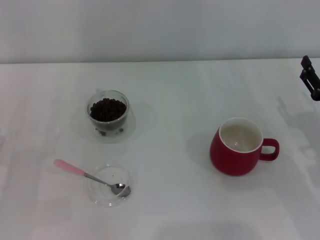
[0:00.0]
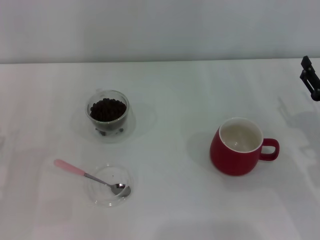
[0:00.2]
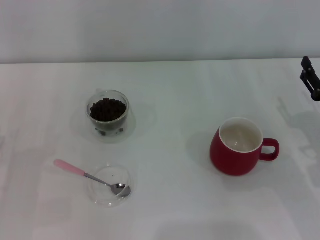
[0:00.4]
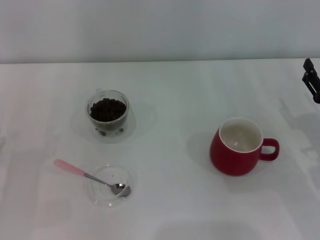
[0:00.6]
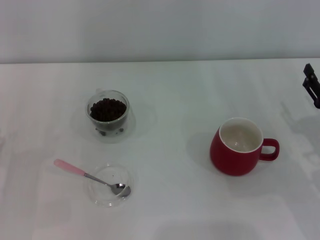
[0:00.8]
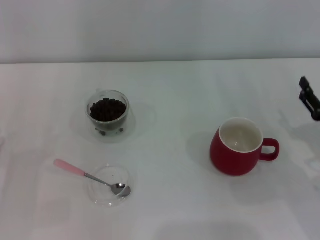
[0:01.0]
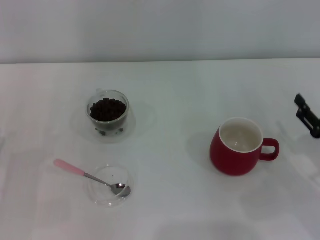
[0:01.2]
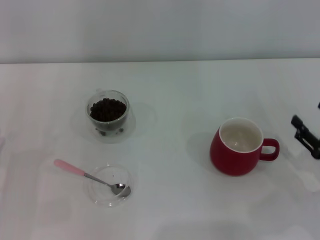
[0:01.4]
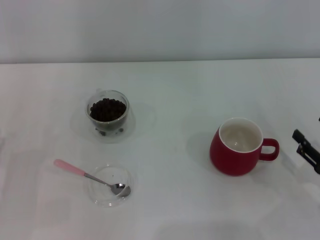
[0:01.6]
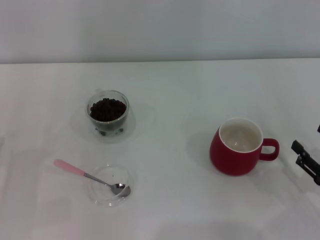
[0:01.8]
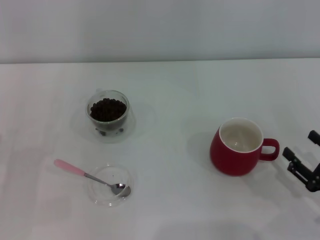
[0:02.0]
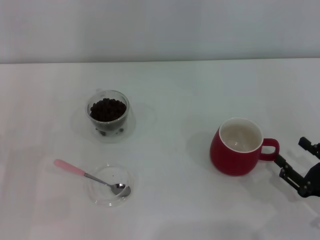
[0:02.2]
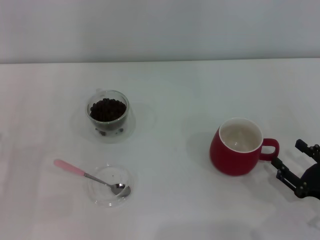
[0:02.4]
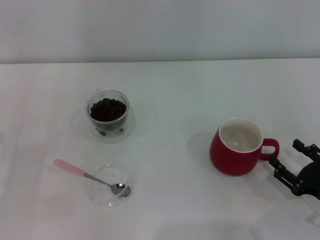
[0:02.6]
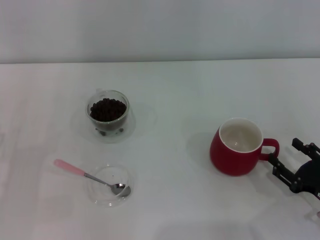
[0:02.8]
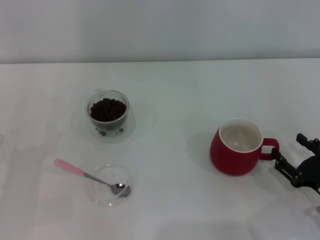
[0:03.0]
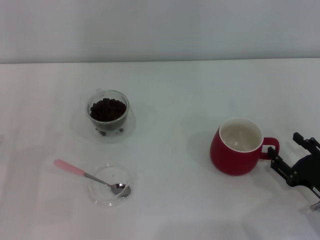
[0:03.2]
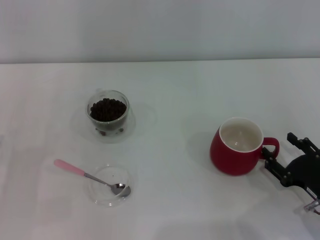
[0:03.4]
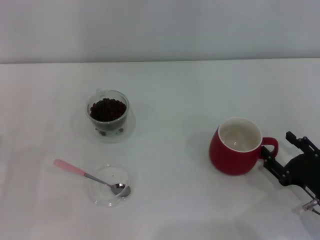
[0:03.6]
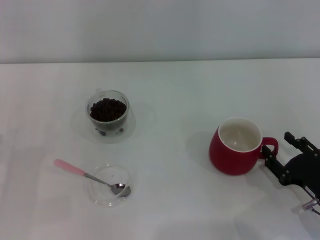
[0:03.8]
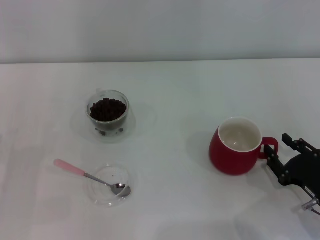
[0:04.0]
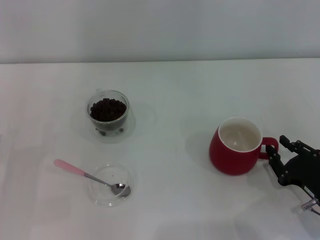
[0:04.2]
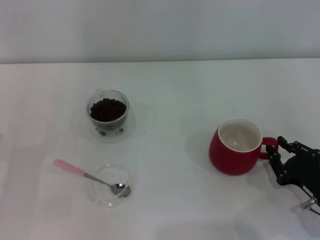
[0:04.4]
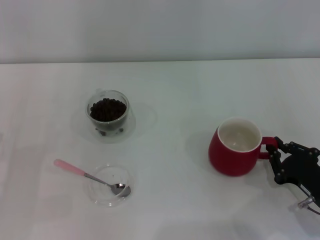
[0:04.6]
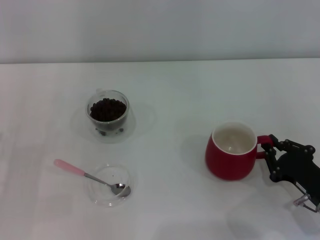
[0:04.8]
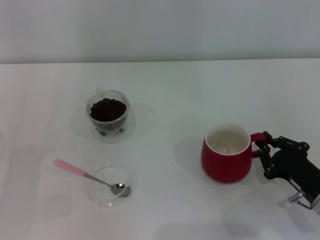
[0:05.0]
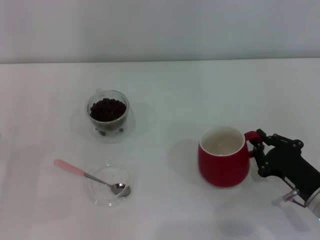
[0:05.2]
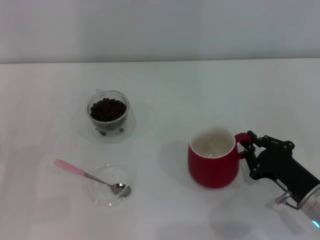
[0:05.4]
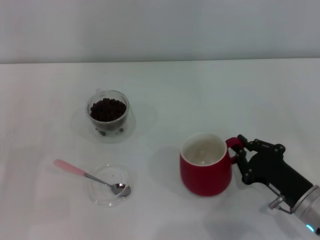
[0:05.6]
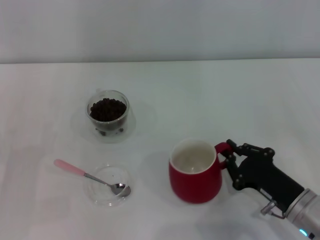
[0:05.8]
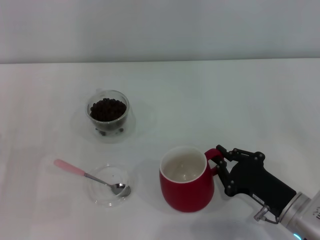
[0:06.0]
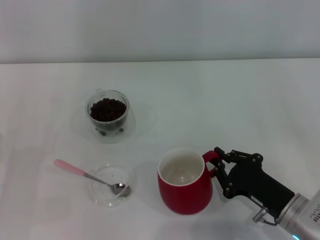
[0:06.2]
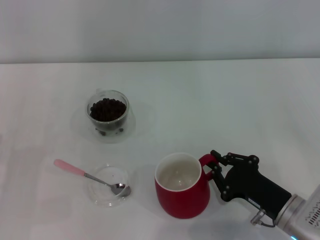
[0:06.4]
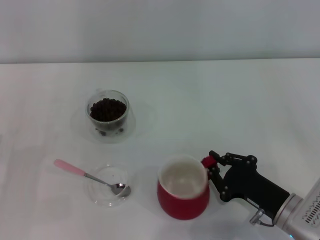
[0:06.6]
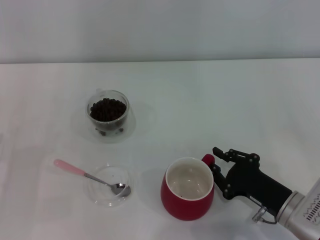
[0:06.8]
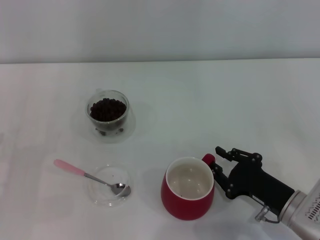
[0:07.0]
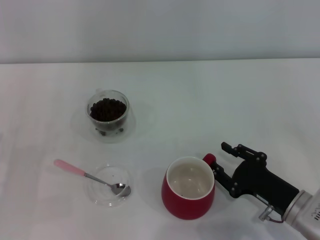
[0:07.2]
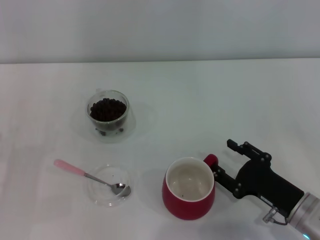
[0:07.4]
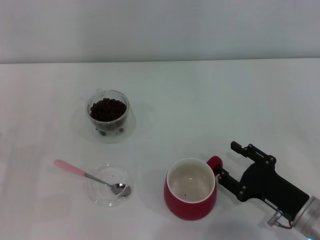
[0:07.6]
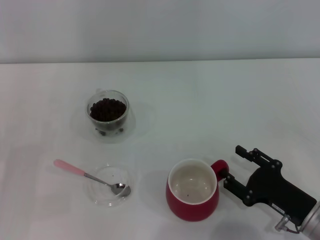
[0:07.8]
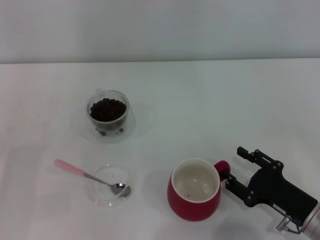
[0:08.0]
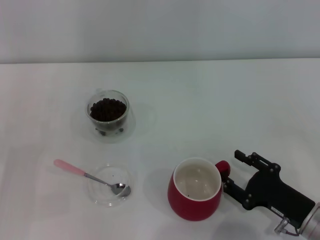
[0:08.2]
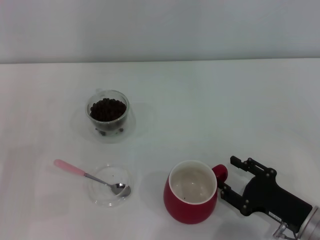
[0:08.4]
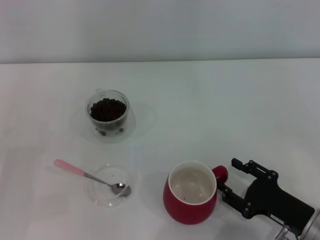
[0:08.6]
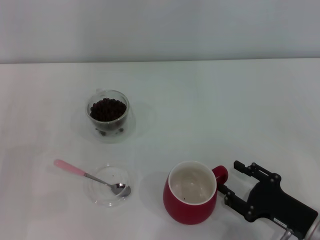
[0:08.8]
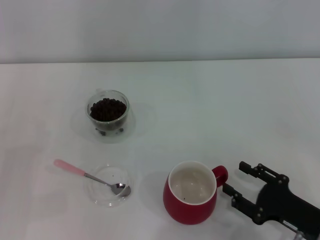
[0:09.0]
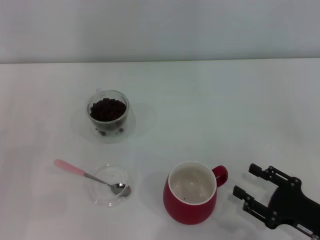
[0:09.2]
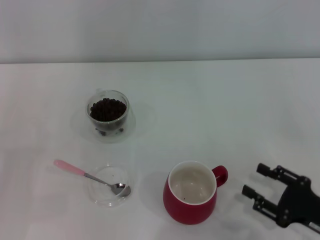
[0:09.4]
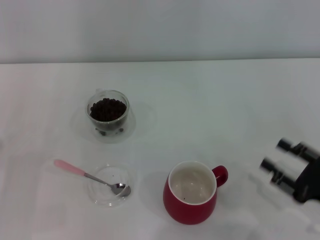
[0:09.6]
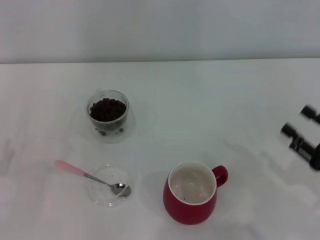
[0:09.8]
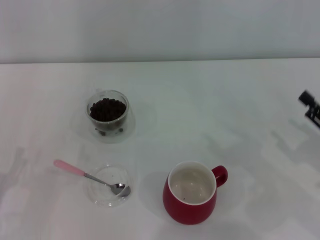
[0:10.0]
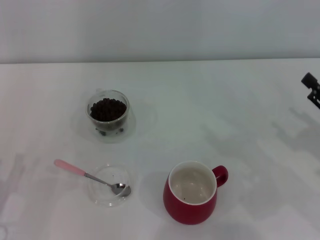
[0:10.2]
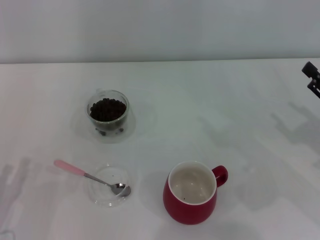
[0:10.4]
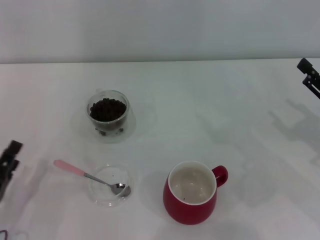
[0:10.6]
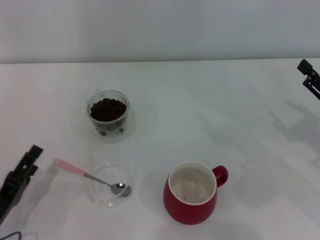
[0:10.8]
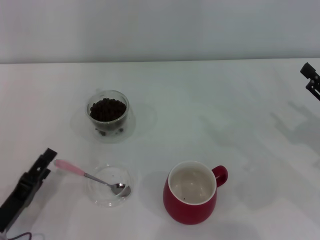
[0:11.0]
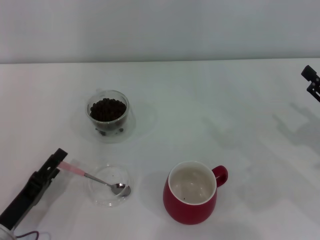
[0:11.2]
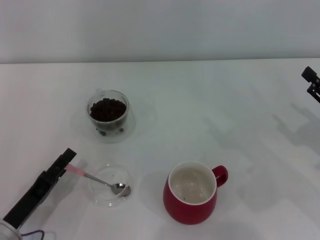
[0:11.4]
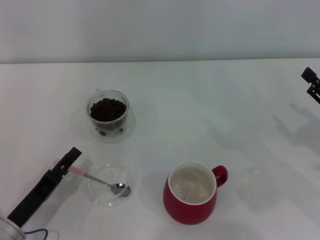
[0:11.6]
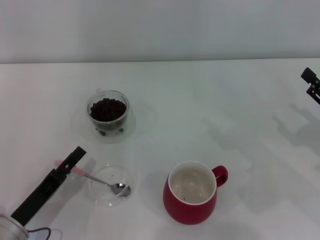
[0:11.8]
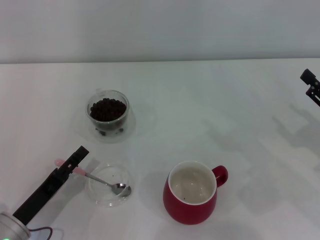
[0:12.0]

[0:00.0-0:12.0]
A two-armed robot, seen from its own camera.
Task of the whole recording: Use a pink spoon to take out the coffee beans from the glass and pour them into the red cup.
Step, 0:00.0 to 0:09.4: Move the cup to the center of view with the left gripper.
0:00.0 to 0:01.6: The right gripper heads backward, covering about 10 cm.
0:01.6 to 0:03.0: There are only small adjustments of the grippers.
0:03.0 to 0:04.4: The right gripper closes.
0:04.4 to 0:06.0: The right gripper goes about 5 cm to the left, and closes.
0:06.0 to 0:07.6: The right gripper opens.
0:07.6 to 0:09.0: The grippers move only a little.
0:09.0 to 0:10.4: The right gripper goes approximately 15 cm to the right, upward and forward.
0:10.4 to 0:12.0: The left gripper is displaced to the right by approximately 5 cm.

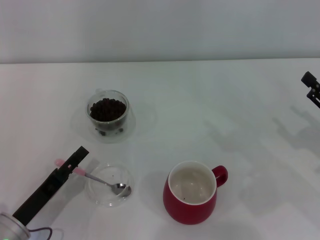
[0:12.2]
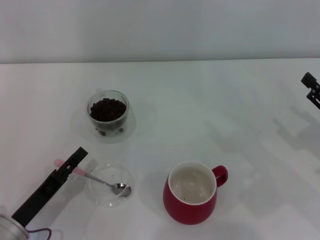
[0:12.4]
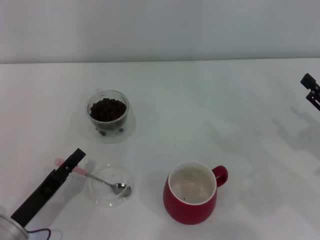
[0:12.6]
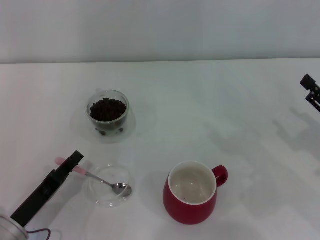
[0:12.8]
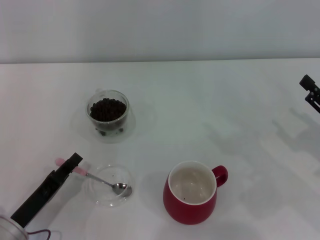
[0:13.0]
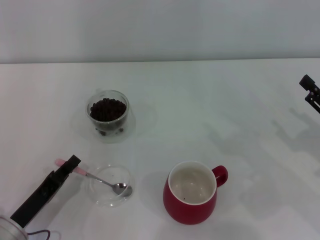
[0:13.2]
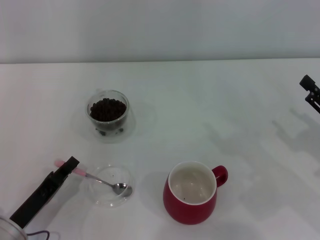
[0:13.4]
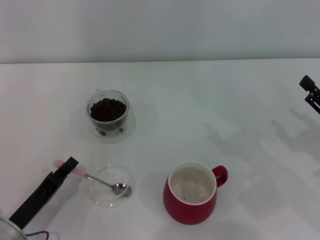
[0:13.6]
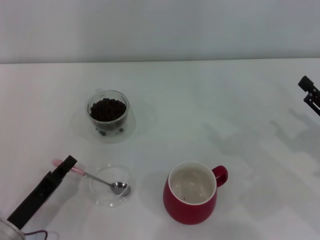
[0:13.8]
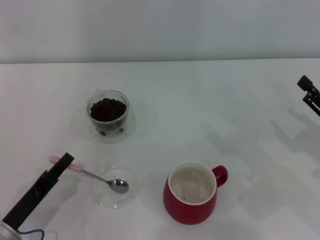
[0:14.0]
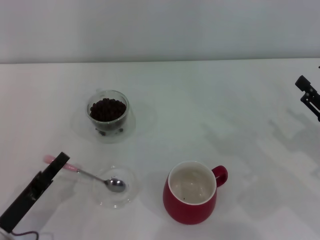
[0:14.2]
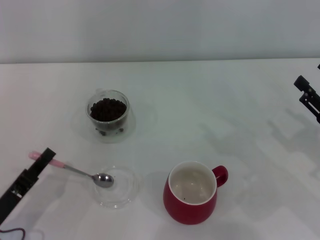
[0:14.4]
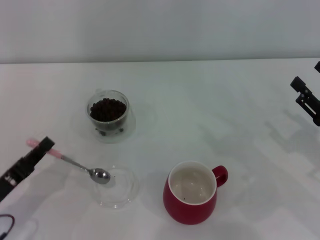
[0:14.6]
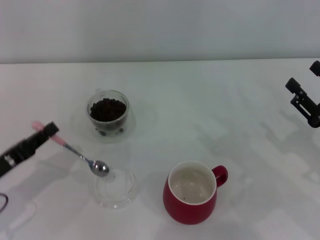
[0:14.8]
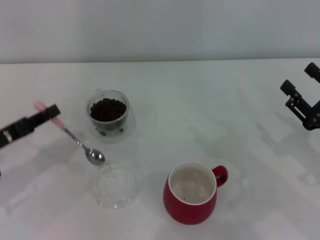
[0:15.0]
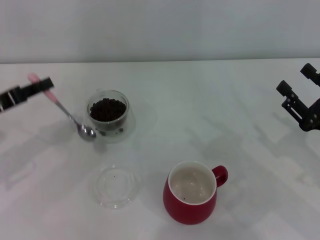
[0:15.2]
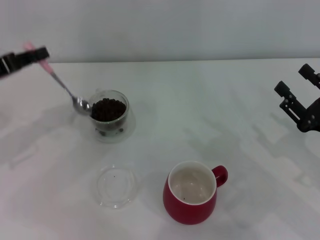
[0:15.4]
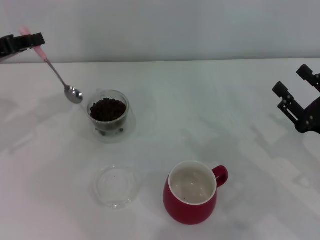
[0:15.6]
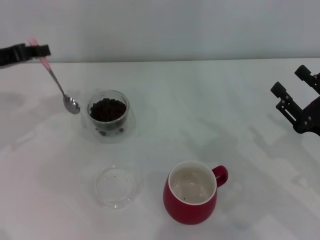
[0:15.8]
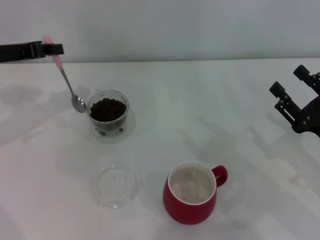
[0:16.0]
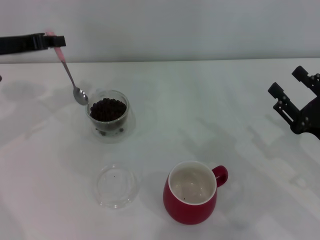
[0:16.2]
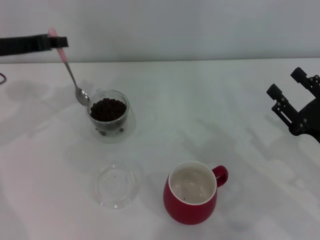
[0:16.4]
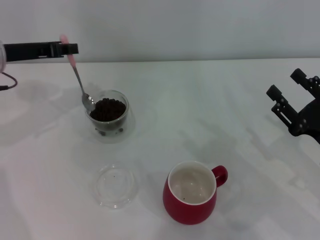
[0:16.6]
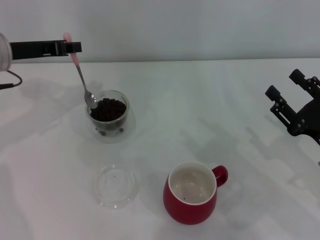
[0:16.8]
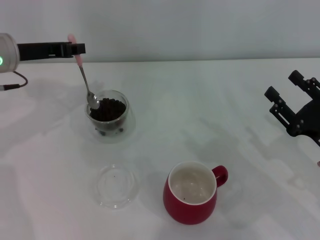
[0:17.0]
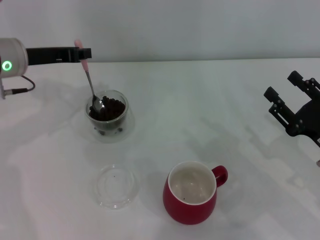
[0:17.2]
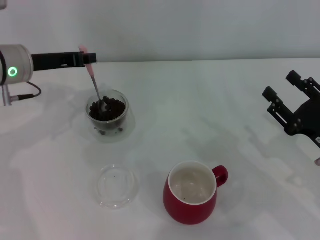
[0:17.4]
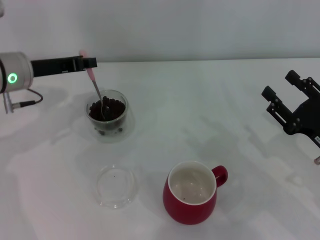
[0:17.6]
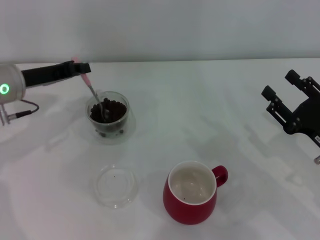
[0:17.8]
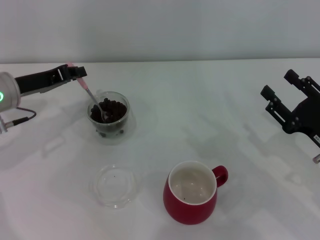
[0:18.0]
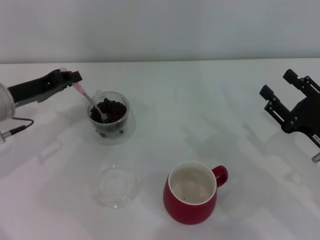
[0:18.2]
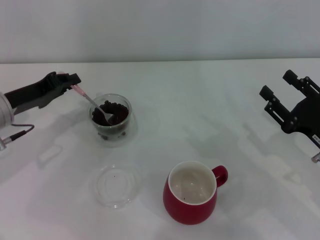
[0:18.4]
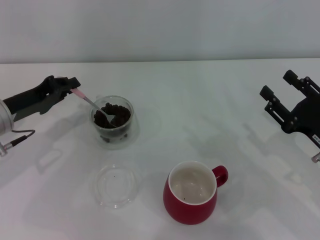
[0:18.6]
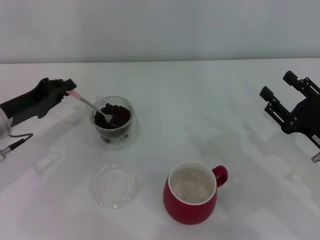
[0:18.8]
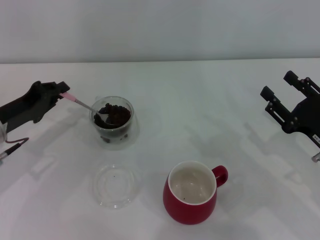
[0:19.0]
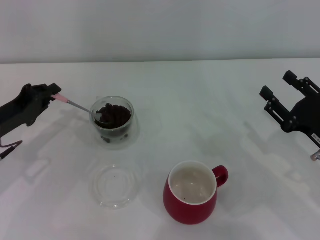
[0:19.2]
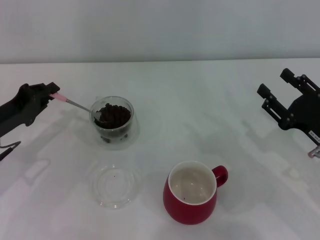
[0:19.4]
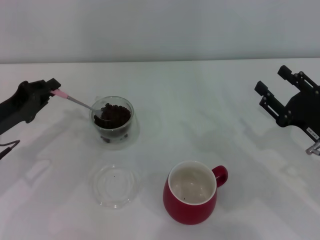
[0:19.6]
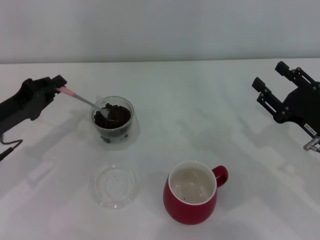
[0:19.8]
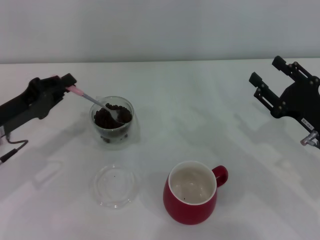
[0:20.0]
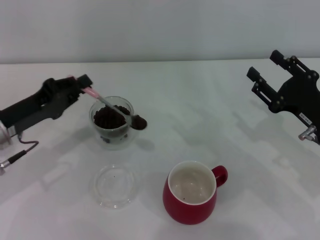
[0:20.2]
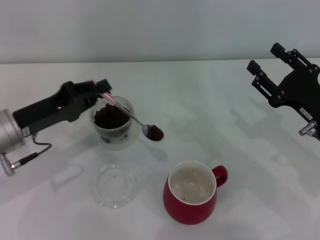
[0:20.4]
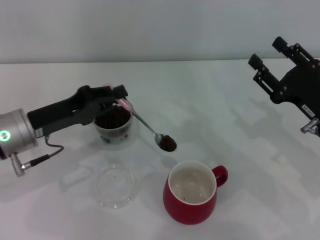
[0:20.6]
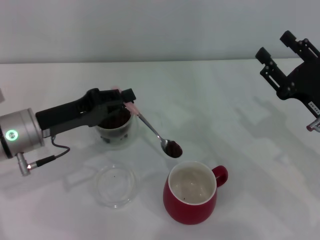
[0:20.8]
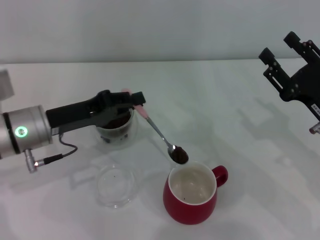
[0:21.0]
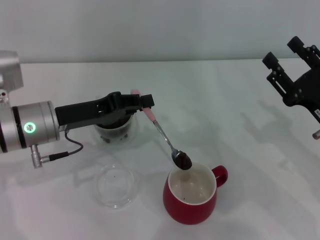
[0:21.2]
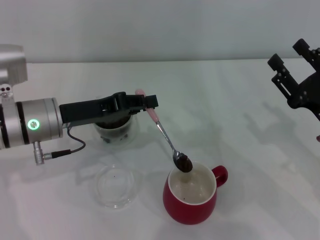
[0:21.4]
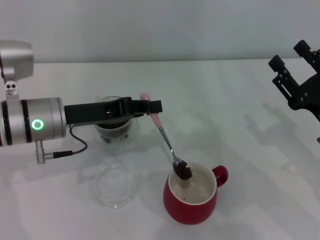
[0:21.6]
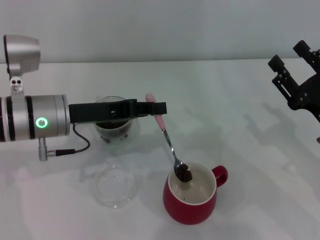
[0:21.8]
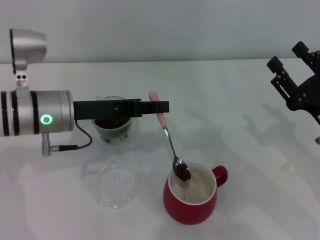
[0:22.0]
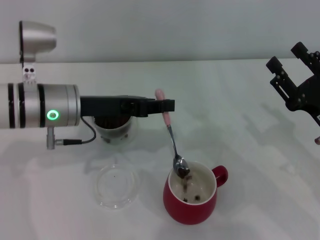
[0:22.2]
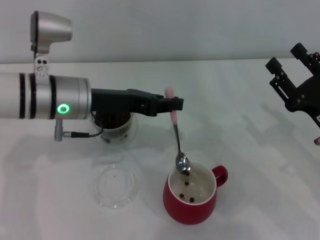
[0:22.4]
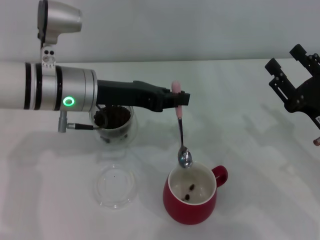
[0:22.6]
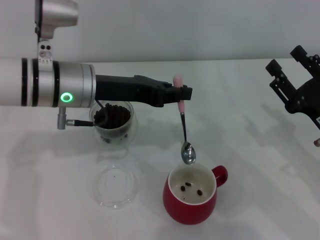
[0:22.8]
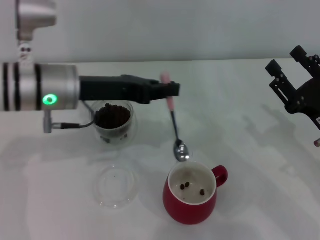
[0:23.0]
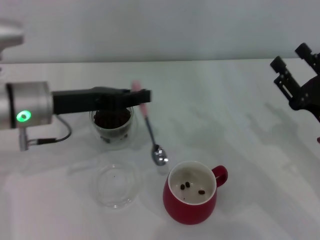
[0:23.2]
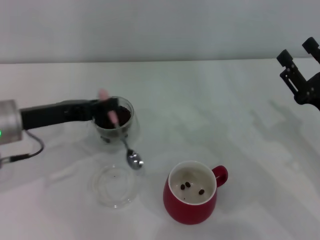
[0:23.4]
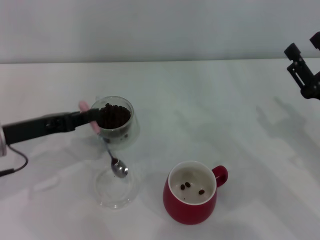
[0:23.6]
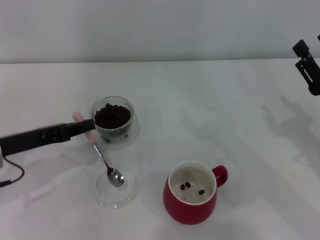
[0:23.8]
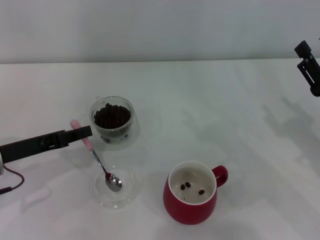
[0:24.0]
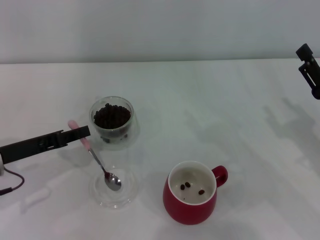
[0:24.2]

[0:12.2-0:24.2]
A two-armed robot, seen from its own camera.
Task of the whole recording: Use a pink spoon to take out the coffee beans from the glass and pour them into the red cup.
Step, 0:12.2 to 0:15.0: Pick up the spoon with the right gripper.
Step, 0:15.2 to 0:22.6: Scoop a spoonful of beans into the cup with the right gripper.
0:12.2 to 0:13.8: The left gripper closes its fingers.
0:13.8 to 0:15.2: The left gripper travels upward, forward and to the left by some 20 cm.
0:15.2 to 0:16.6: The left gripper is displaced forward, upward and to the right by about 15 cm.
0:16.6 to 0:18.2: The left gripper goes roughly 5 cm downward.
0:18.2 to 0:19.8: The left gripper moves backward, about 5 cm.
0:19.8 to 0:21.2: The left gripper heads to the right, covering about 10 cm.
0:21.2 to 0:22.6: The left gripper shifts approximately 10 cm to the right and upward.
0:22.6 to 0:24.2: The left gripper goes about 15 cm to the left, downward and backward.
